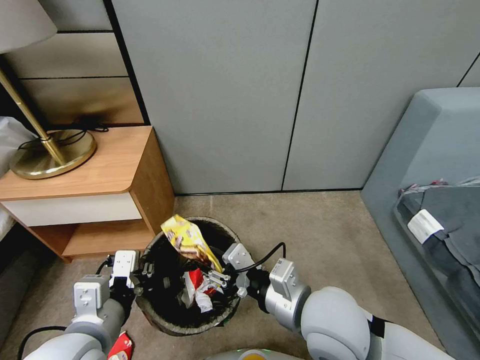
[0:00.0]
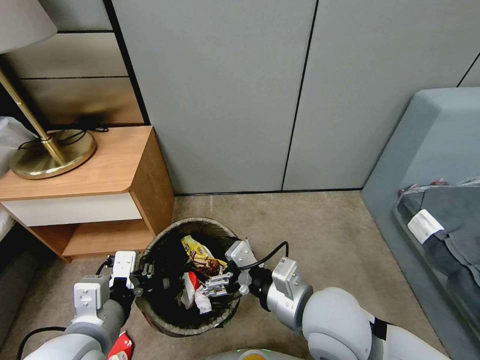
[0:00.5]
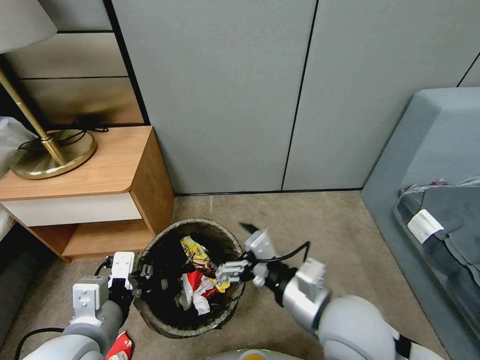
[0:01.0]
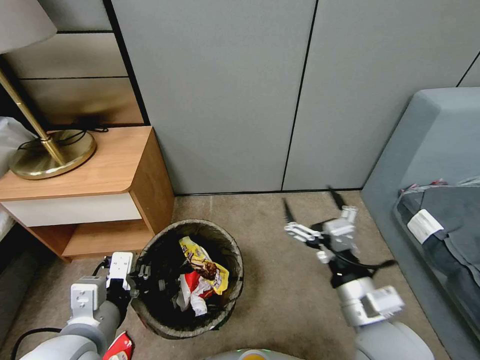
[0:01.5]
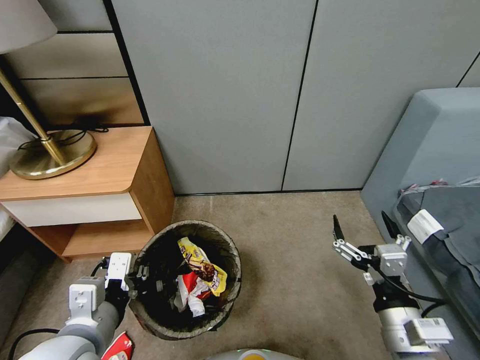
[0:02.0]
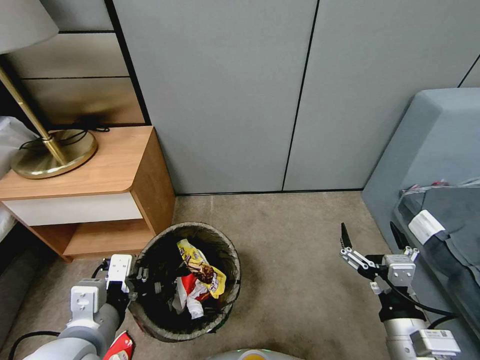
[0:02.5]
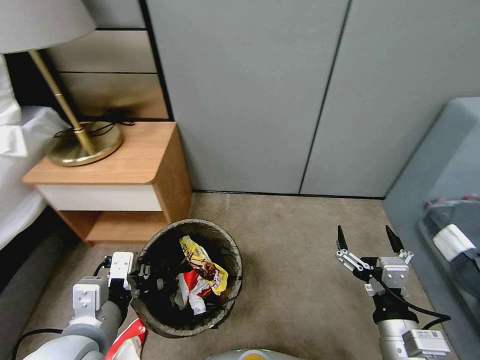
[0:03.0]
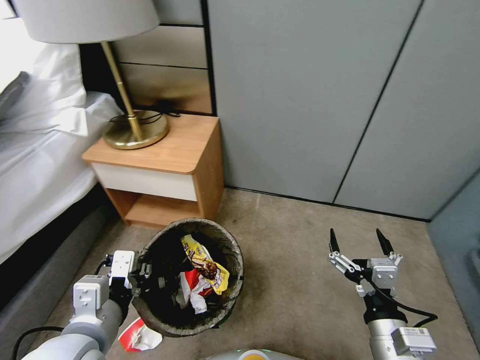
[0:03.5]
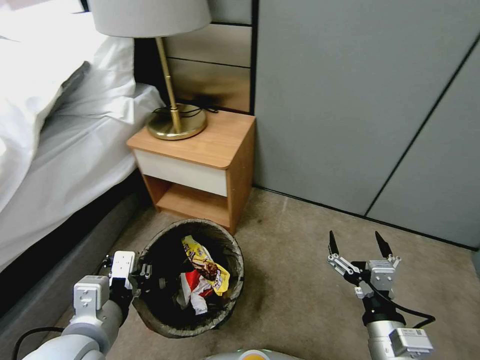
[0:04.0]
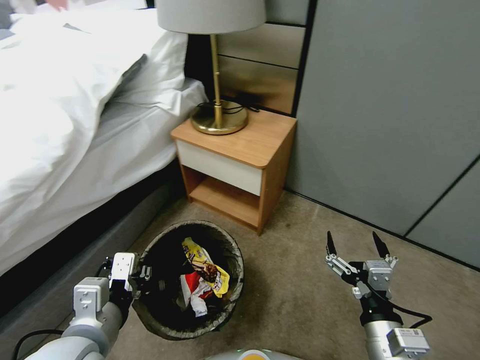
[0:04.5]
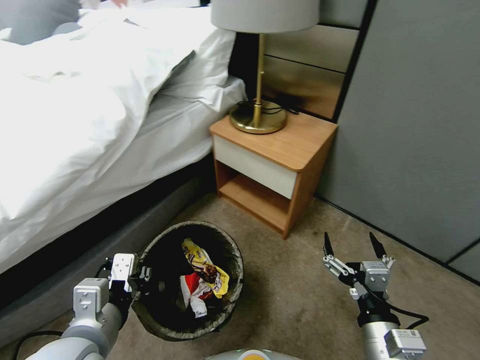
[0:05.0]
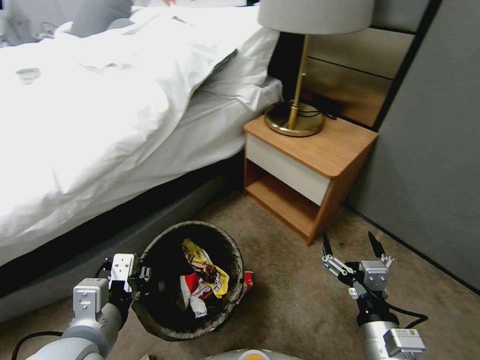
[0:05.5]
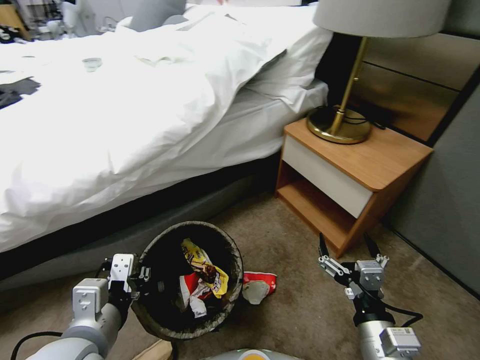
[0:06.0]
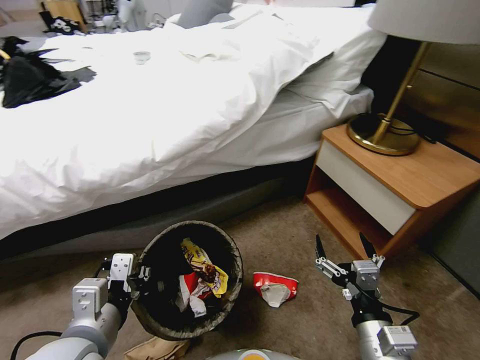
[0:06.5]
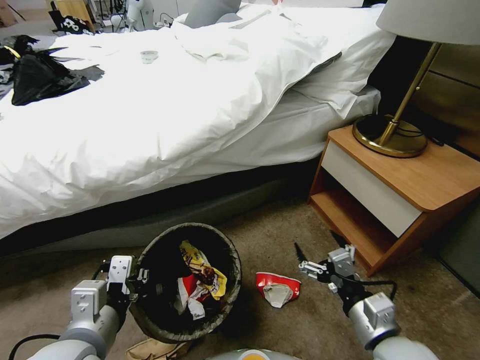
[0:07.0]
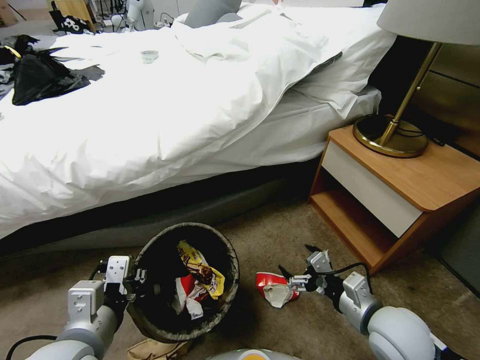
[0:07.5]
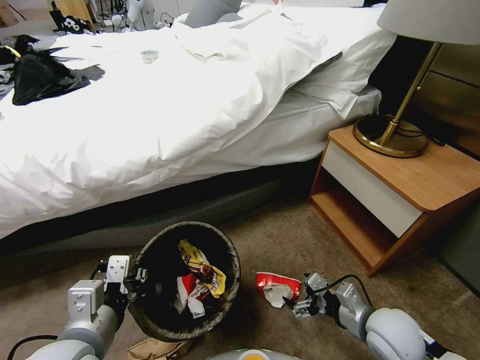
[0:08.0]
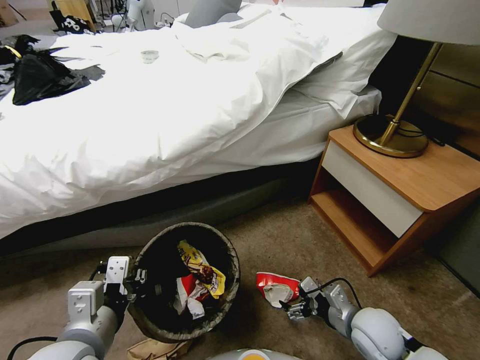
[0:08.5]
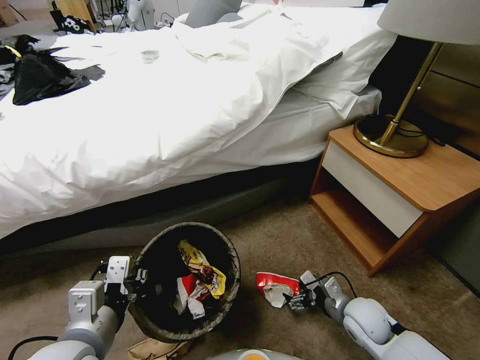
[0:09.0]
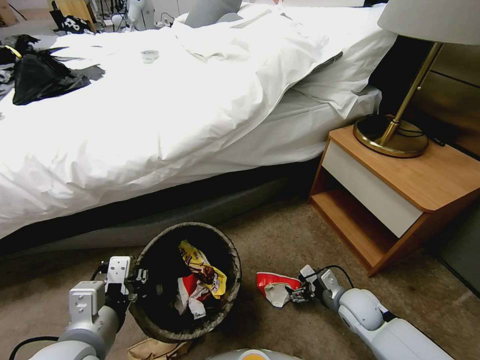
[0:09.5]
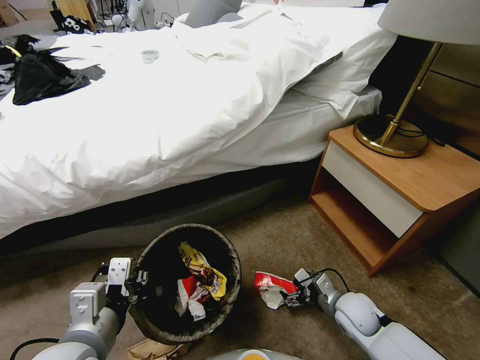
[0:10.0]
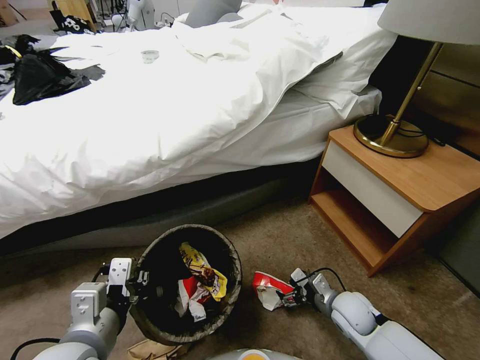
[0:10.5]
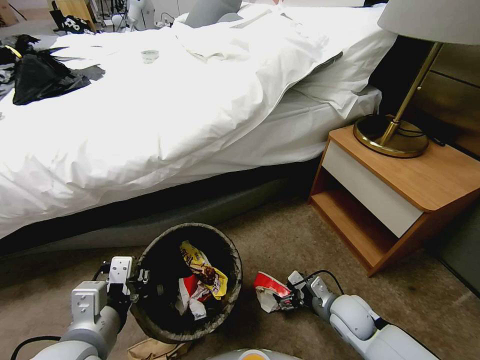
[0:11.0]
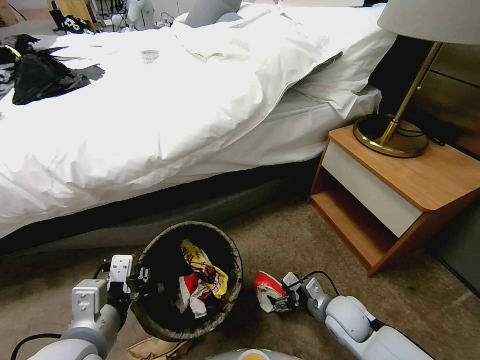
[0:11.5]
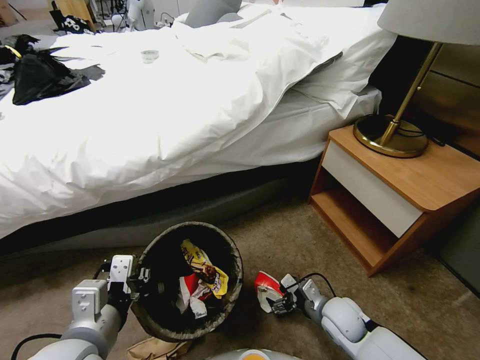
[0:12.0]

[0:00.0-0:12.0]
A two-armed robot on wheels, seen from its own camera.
Task of the whole recording: Pick up the trash bin, then pick up the garbage from the floor and place it into the trash bin.
0:00.0 to 0:02.0: The right gripper shifts some 15 cm to the right and backward, and opens its fingers.
0:06.0 to 0:08.0: The right gripper travels forward, downward and to the right by approximately 15 cm.
0:08.0 to 0:10.0: The right gripper heads downward and forward, covering roughly 10 cm.
0:10.0 to 0:12.0: The grippers make only small movements.

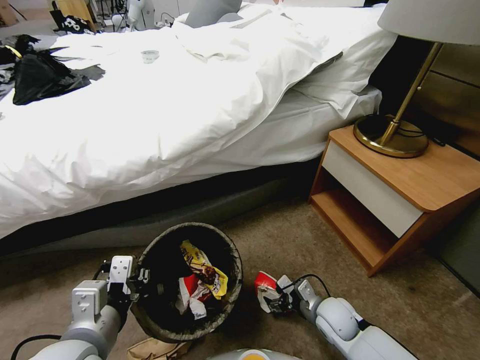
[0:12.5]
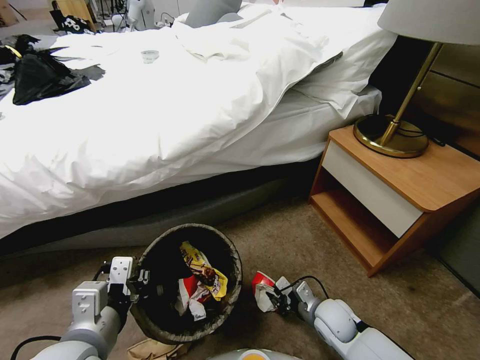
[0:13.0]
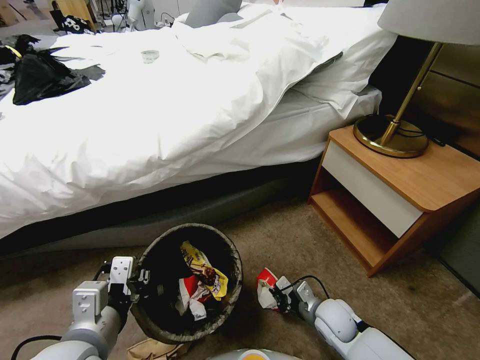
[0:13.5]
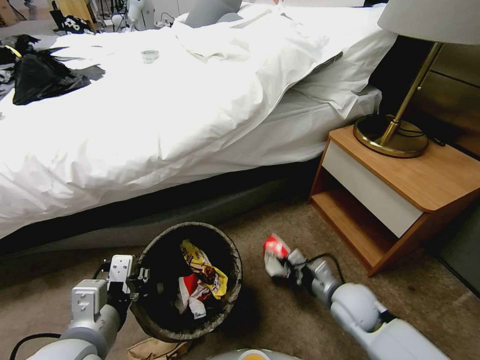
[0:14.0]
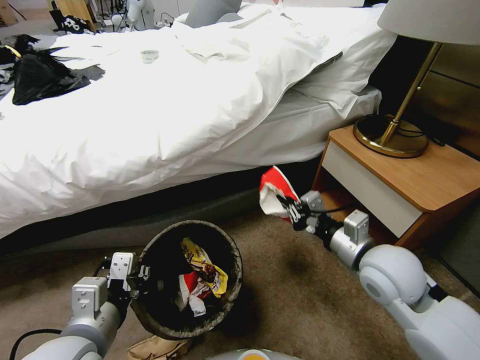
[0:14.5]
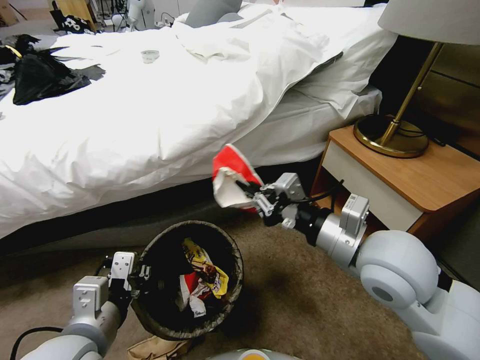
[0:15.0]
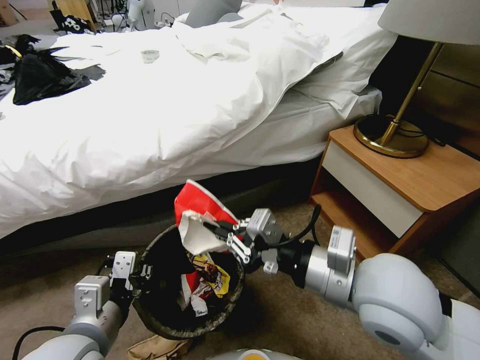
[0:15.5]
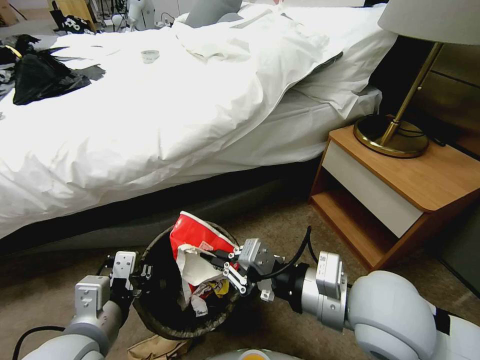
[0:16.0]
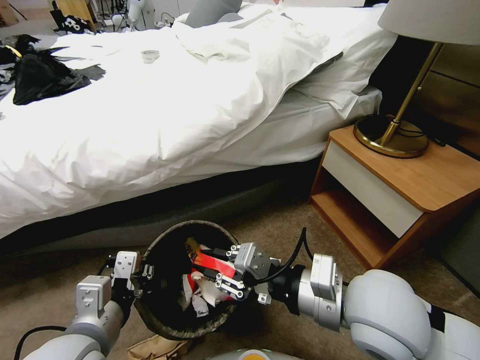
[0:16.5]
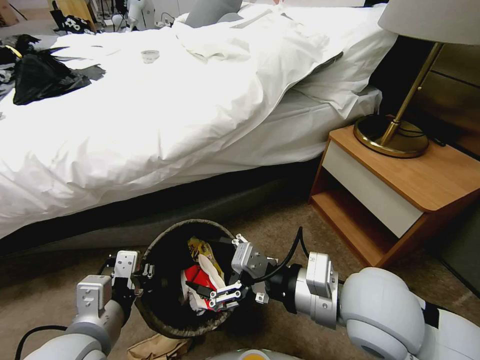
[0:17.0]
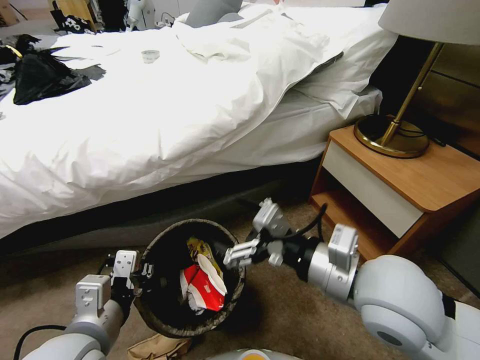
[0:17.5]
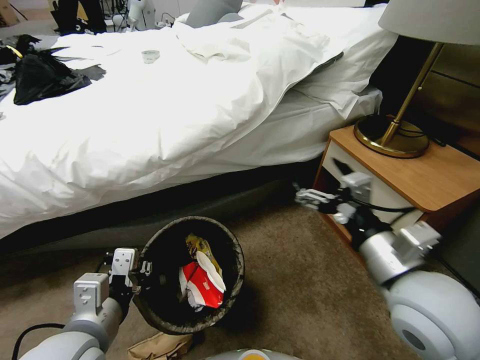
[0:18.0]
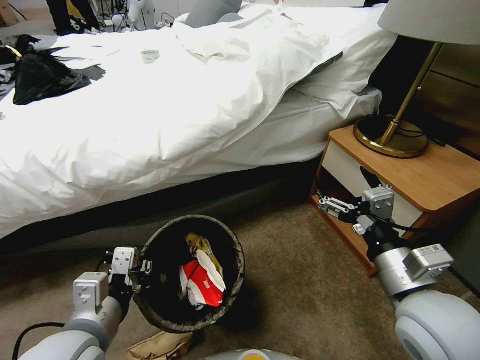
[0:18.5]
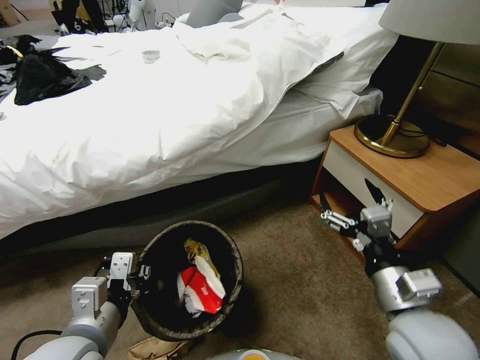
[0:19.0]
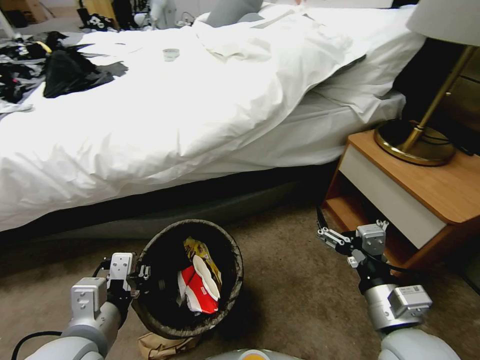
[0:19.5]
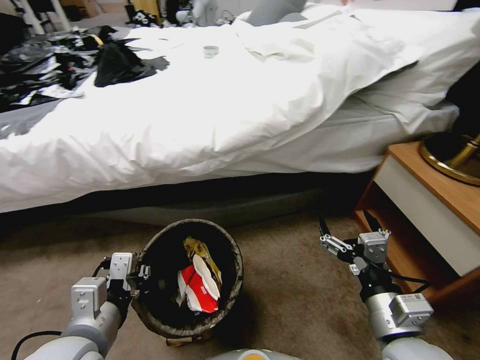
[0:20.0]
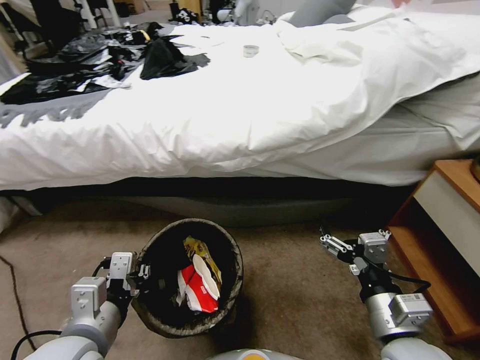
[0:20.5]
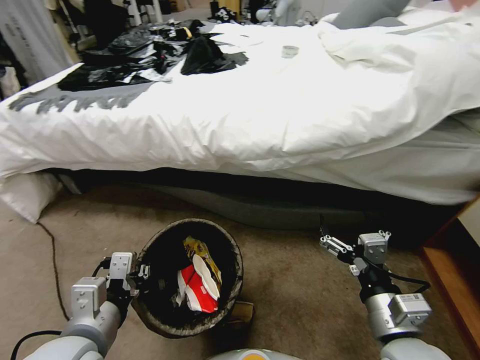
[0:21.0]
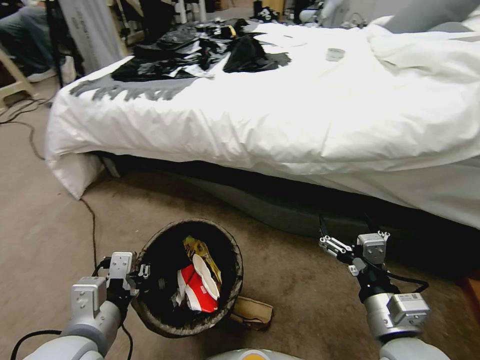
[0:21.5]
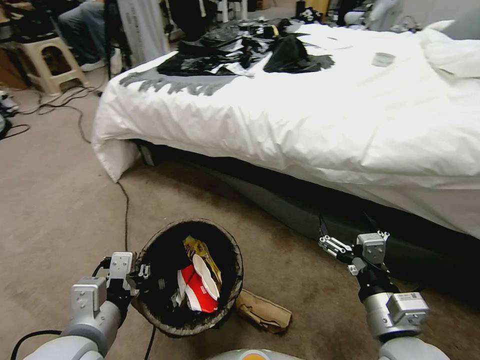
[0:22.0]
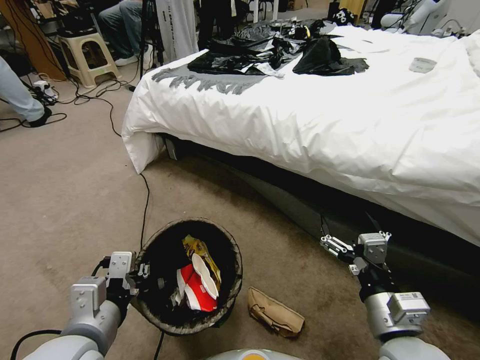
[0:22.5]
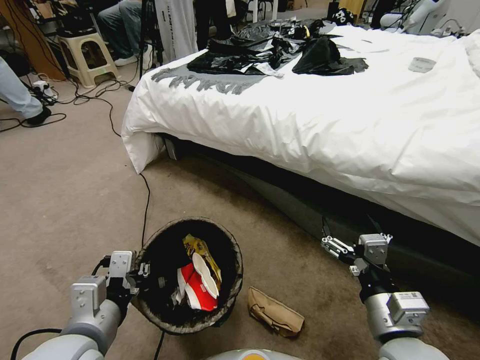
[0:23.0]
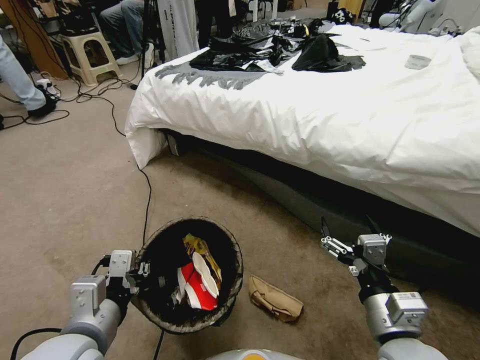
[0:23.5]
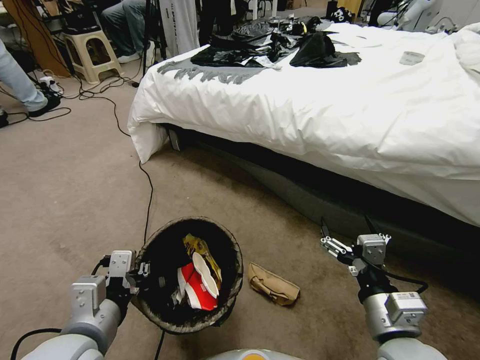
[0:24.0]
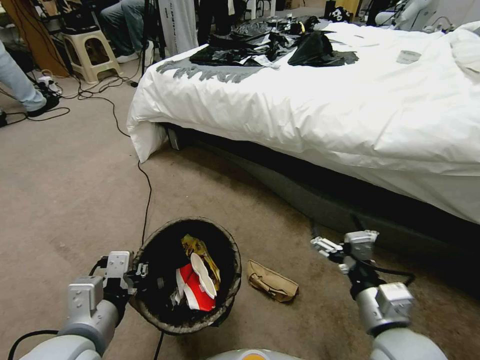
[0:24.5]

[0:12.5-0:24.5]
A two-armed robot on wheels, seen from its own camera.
Task of the whole recording: Pick up the trash bin, then pick up the garbage from the floor and place it into the trash bin.
0:12.5 to 0:14.5: The right gripper shifts some 25 cm upward, and closes.
0:14.5 to 0:16.5: The right gripper travels to the left, backward and upward by approximately 15 cm.
0:16.5 to 0:18.5: The right gripper moves to the right, roughly 10 cm, and opens up.
0:18.5 to 0:20.5: The right gripper heads downward, covering about 5 cm.

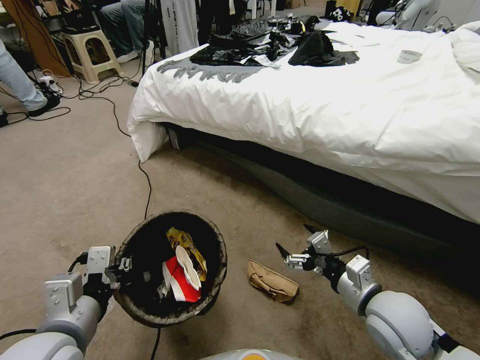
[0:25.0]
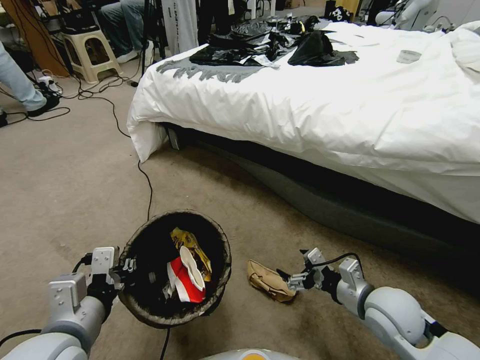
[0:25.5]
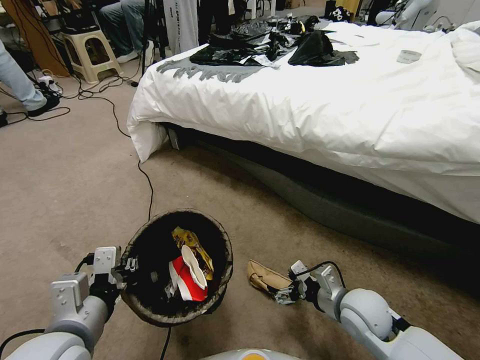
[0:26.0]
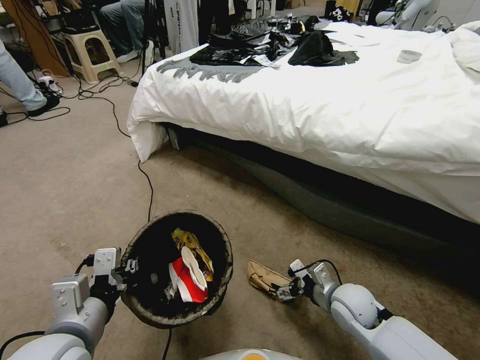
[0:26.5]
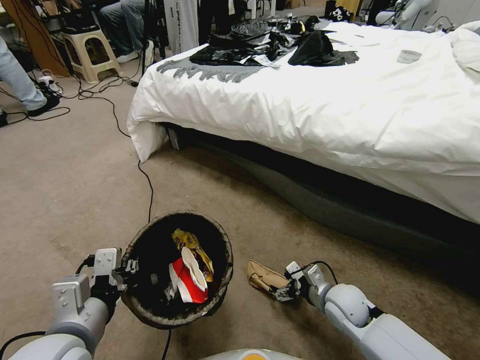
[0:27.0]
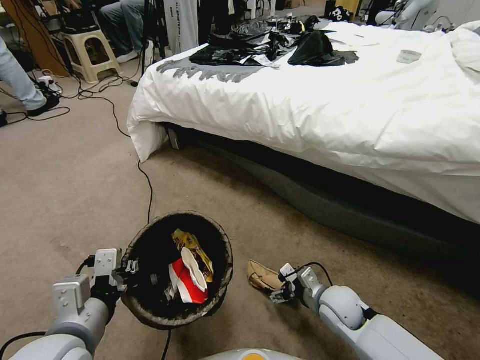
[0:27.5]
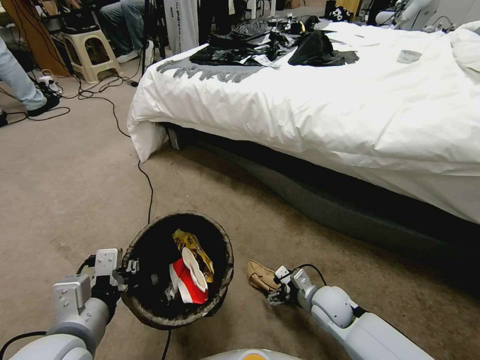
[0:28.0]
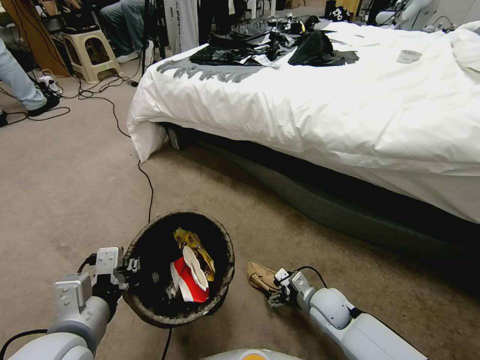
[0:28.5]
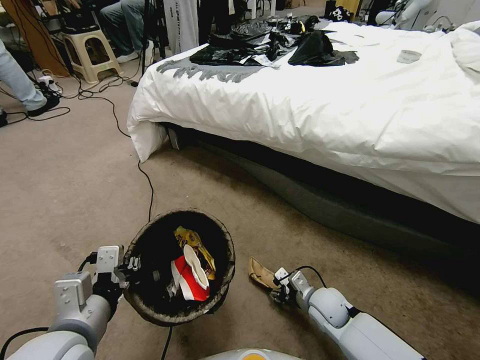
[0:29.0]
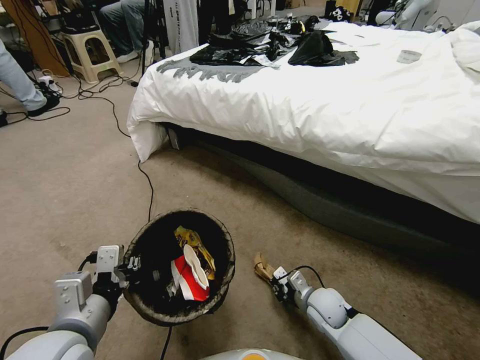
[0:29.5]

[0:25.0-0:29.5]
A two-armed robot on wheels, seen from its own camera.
Task of the whole recording: Pick up the trash bin, then pick up the garbage from the floor and place it into the trash bin.
0:25.0 to 0:27.0: The right gripper travels downward and forward by roughly 15 cm.
0:27.0 to 0:29.5: The right gripper ends up approximately 5 cm from where it was, and closes its fingers.
